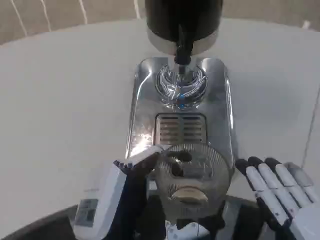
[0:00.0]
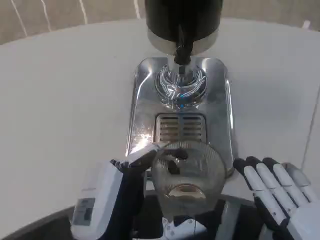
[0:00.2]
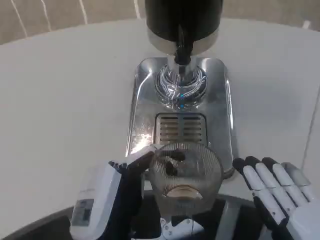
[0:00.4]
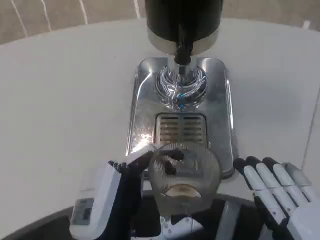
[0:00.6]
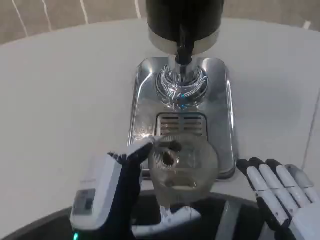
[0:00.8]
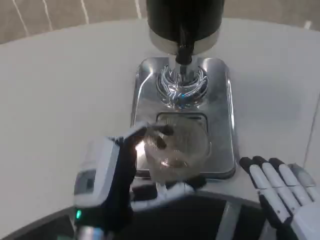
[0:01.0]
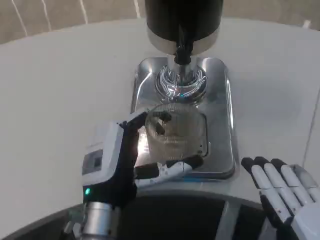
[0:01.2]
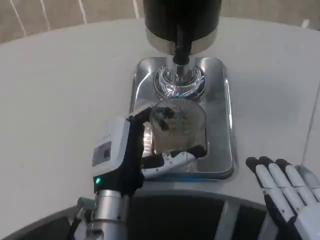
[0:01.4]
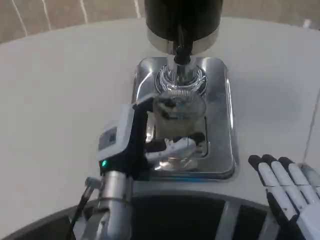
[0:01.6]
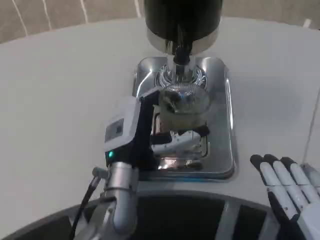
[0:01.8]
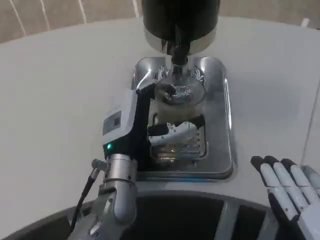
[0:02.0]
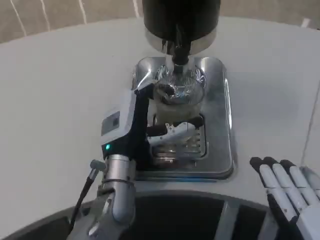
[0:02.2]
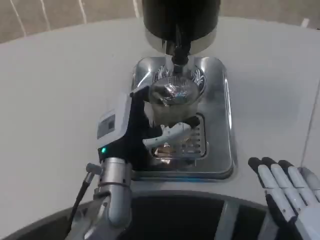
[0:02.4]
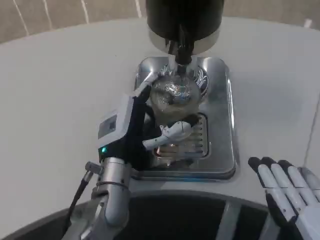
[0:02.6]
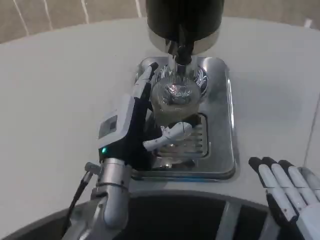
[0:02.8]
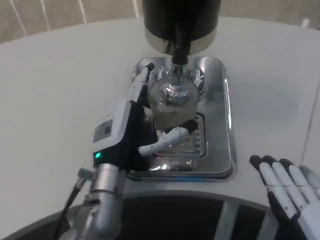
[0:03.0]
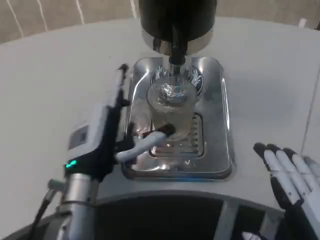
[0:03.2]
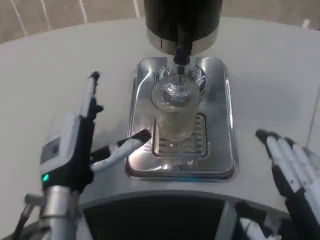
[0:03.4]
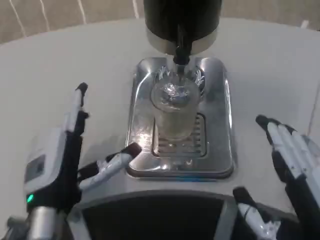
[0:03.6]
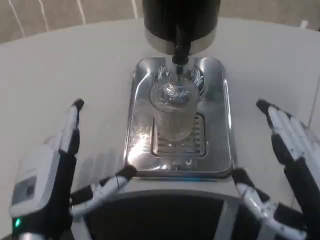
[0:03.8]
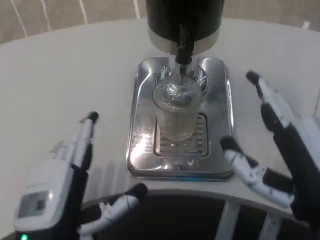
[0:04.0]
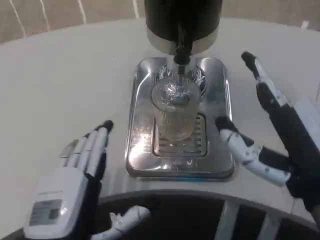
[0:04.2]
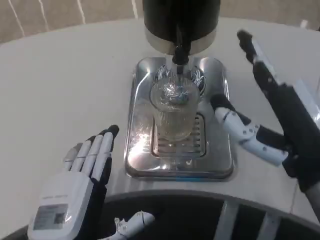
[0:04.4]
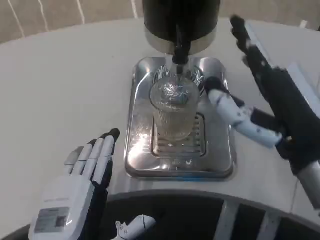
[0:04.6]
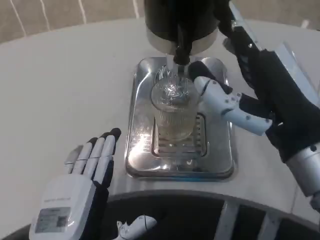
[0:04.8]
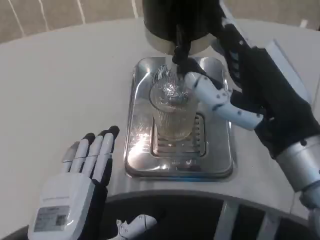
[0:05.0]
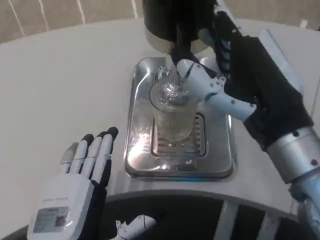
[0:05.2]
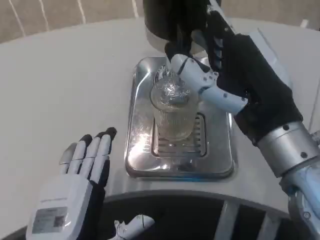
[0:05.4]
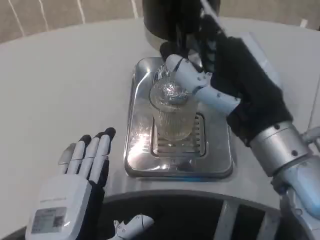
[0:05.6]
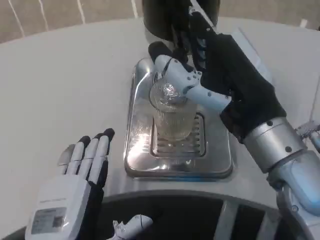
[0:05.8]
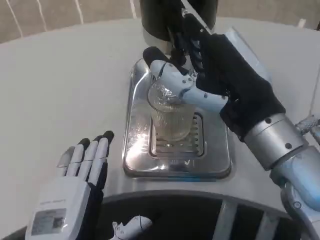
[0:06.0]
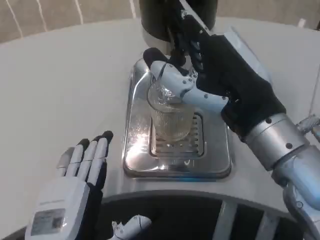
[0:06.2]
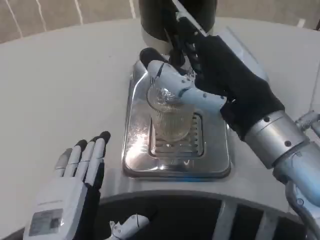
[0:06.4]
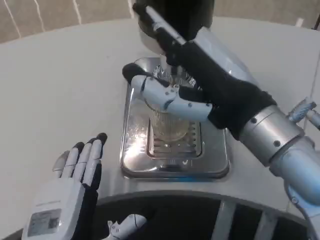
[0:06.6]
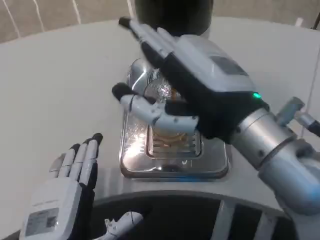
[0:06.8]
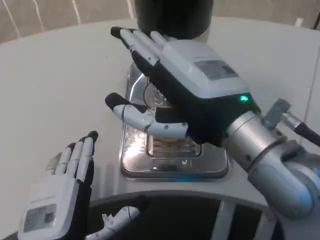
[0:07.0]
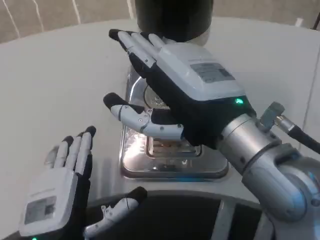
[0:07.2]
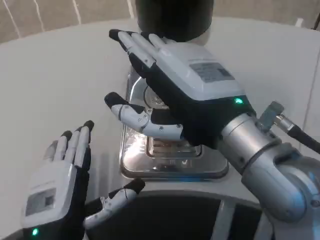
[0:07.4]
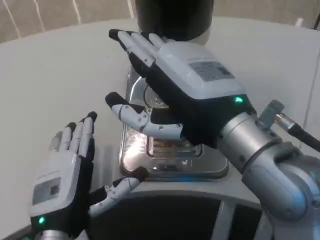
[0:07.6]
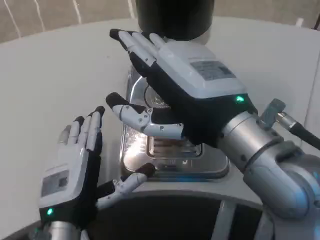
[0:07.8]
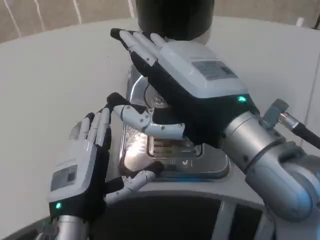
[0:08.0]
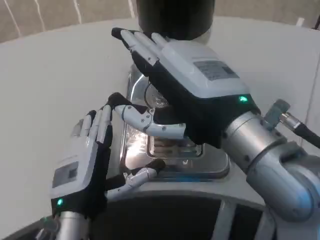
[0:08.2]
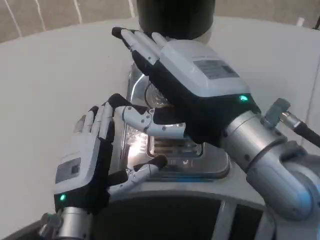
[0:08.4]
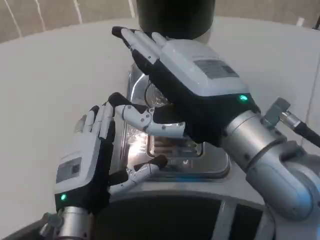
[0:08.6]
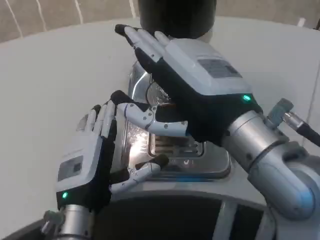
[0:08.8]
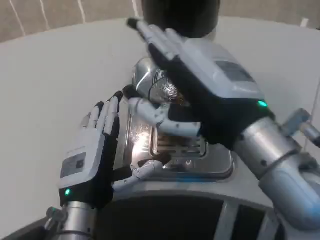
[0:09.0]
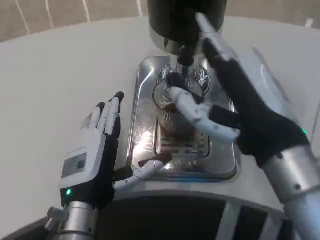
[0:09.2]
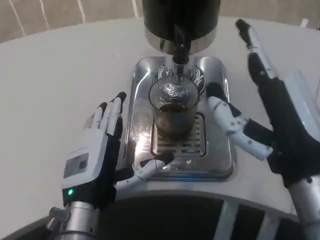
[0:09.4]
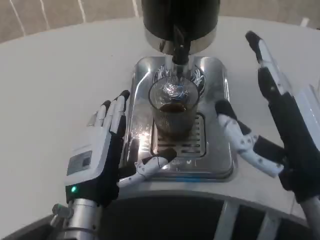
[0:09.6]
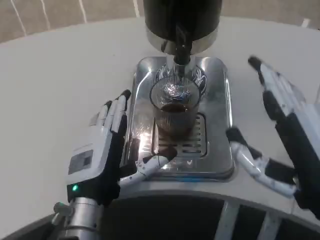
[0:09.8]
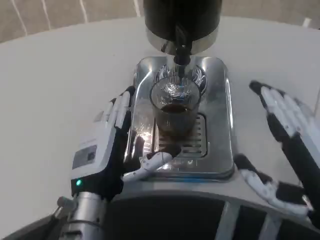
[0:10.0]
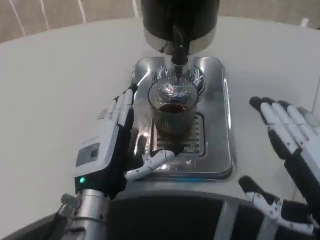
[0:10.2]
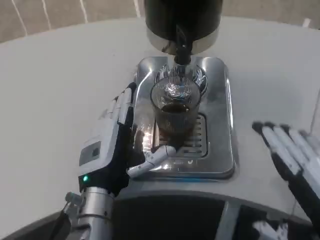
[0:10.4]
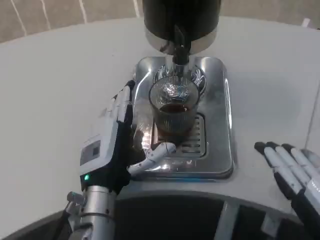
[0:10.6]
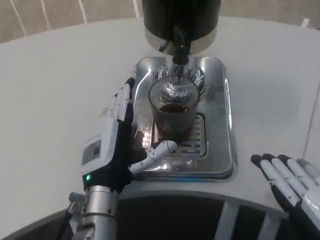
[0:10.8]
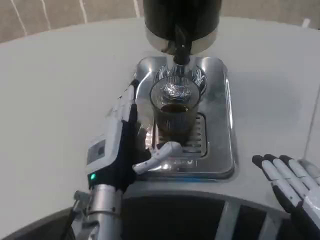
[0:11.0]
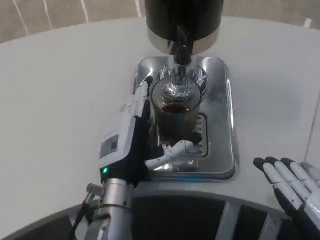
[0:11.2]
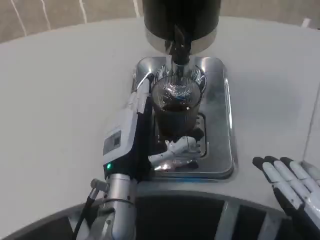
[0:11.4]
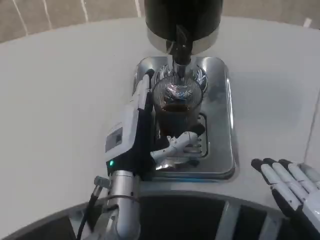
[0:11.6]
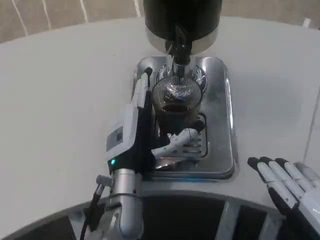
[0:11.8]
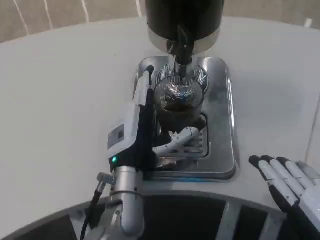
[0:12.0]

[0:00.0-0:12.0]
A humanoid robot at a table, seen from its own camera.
Task of the whole recording: Grasp the cup under the faucet to collect the drink, then remove the cup.
0:00.0 to 0:01.6: The left hand is displaced forward by about 15 cm.
0:01.6 to 0:03.0: There are only small adjustments of the hands.
0:03.0 to 0:04.4: The left hand goes some 15 cm backward. Meanwhile the right hand is displaced forward and upward by some 10 cm.
0:04.4 to 0:06.0: The right hand changes place by approximately 5 cm.
0:06.0 to 0:07.6: The left hand moves forward, roughly 5 cm.
0:09.0 to 0:10.4: The right hand heads to the right, downward and backward, covering some 15 cm.
0:10.4 to 0:12.0: The left hand shifts by about 5 cm.

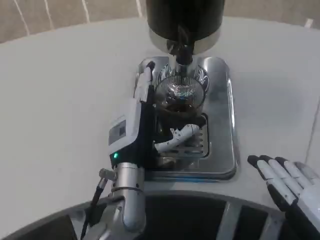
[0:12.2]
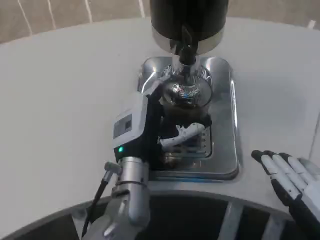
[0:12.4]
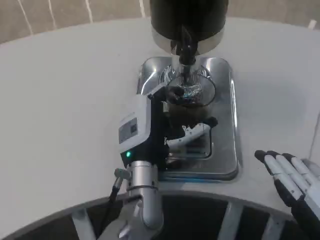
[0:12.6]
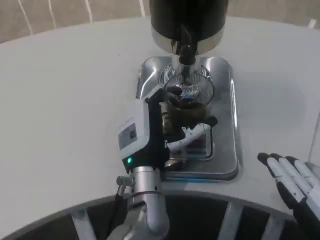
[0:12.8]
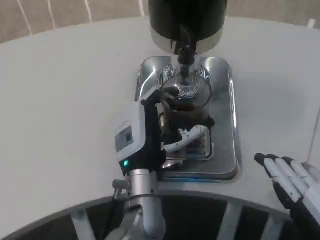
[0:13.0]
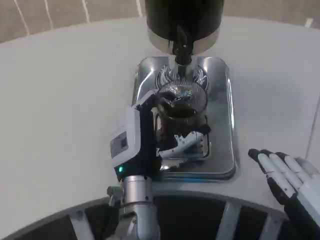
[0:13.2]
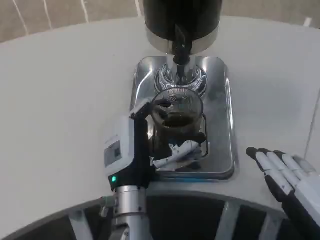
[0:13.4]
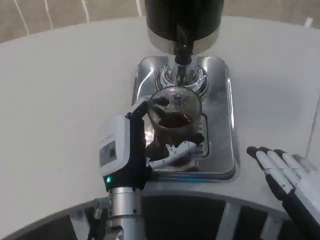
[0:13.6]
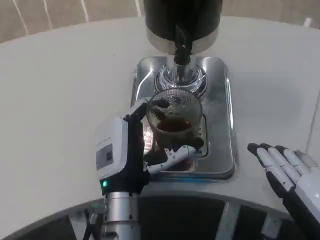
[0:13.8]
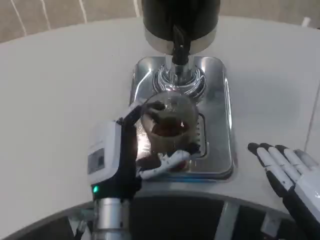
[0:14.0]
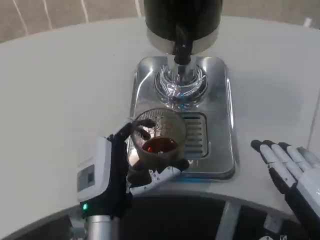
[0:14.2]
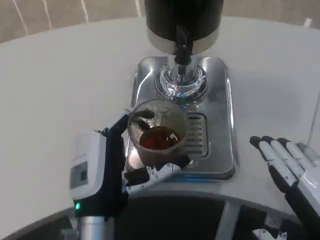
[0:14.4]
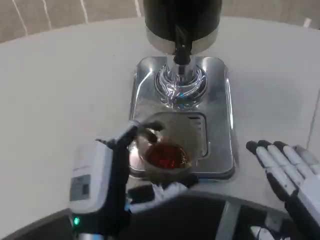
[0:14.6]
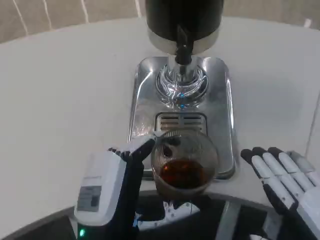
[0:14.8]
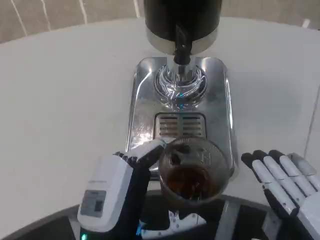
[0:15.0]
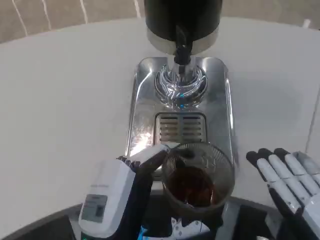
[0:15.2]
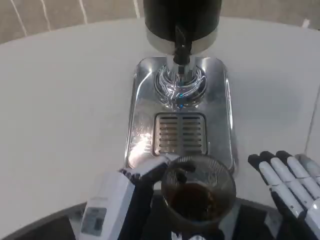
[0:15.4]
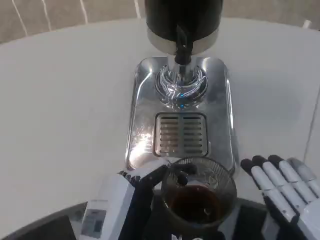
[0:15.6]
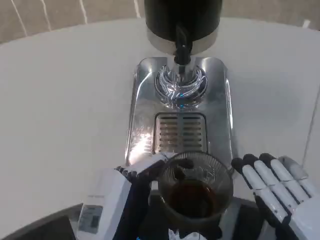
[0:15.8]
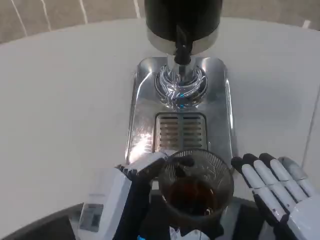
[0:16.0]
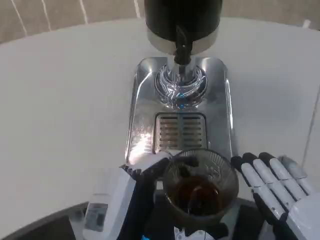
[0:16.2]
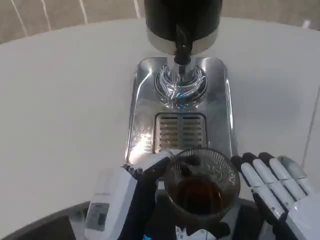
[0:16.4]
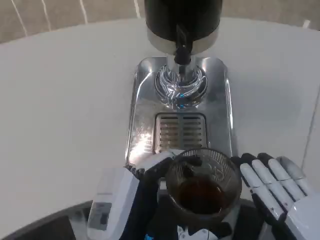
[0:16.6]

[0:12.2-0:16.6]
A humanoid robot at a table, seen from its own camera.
Task of the whole recording: Grasp the cup under the faucet to collect the drink, then remove the cup.
0:12.2 to 0:13.6: There are only small adjustments of the hands.
0:13.6 to 0:15.2: The left hand is displaced backward by about 10 cm.
0:15.2 to 0:16.6: The hands move only a little.

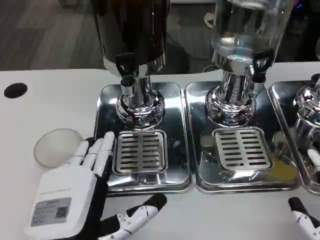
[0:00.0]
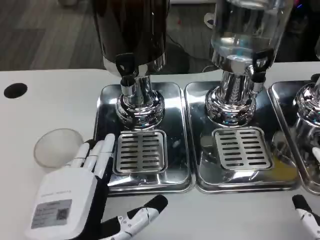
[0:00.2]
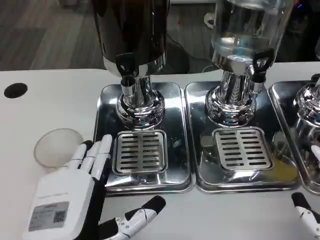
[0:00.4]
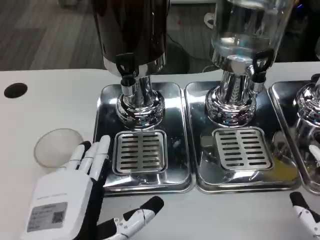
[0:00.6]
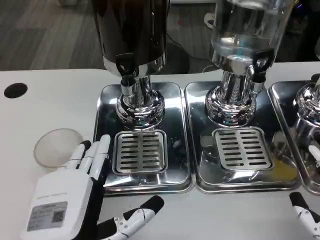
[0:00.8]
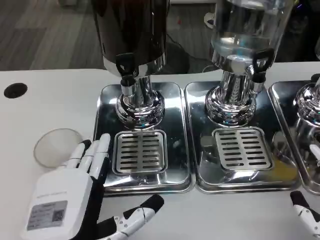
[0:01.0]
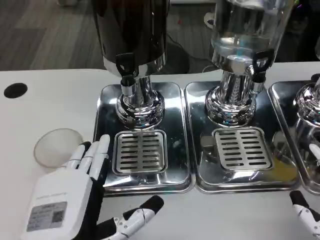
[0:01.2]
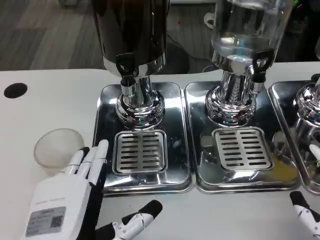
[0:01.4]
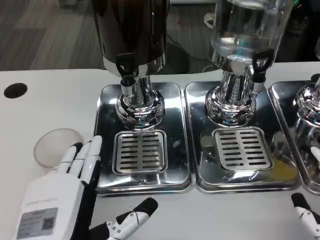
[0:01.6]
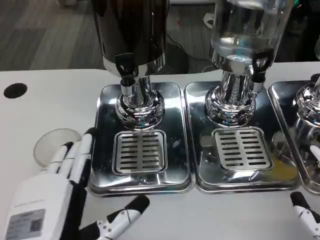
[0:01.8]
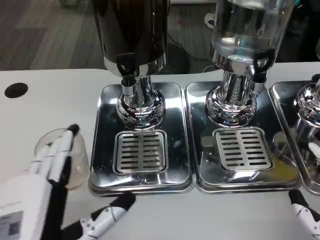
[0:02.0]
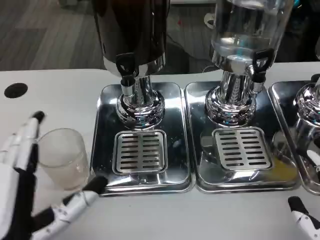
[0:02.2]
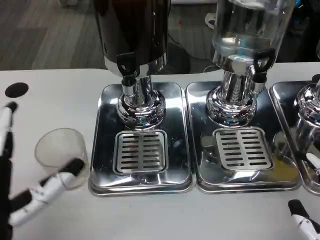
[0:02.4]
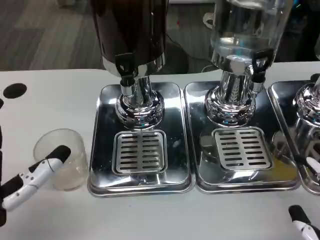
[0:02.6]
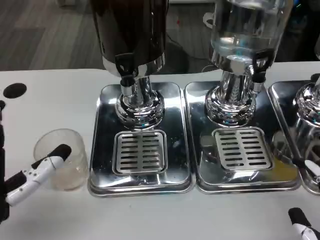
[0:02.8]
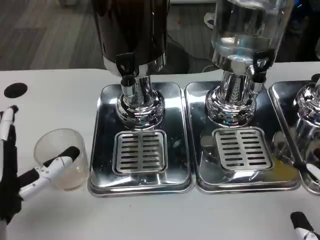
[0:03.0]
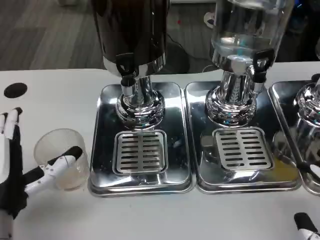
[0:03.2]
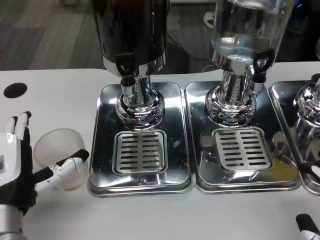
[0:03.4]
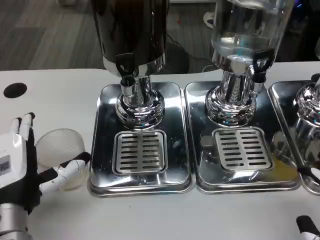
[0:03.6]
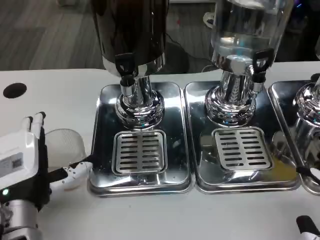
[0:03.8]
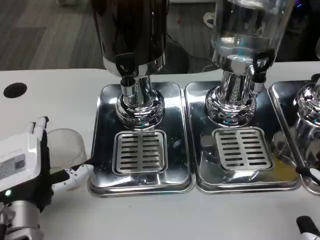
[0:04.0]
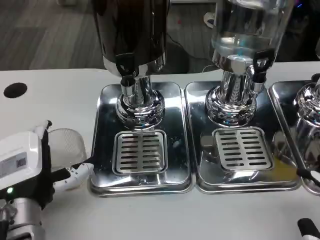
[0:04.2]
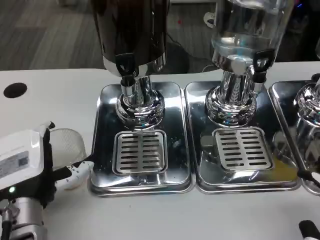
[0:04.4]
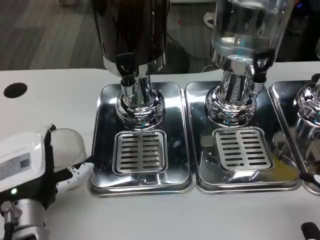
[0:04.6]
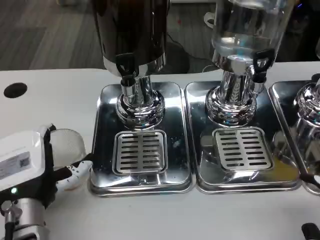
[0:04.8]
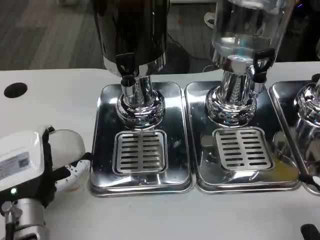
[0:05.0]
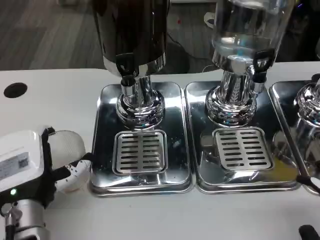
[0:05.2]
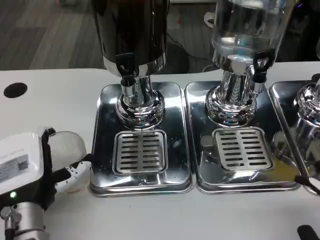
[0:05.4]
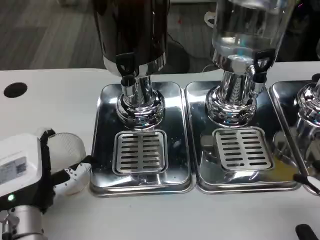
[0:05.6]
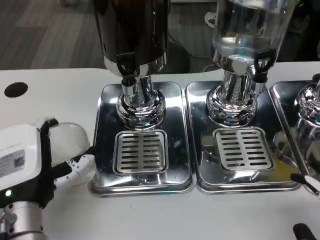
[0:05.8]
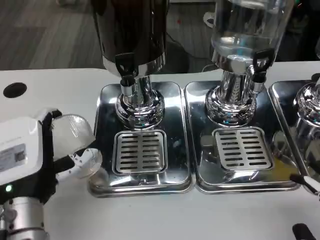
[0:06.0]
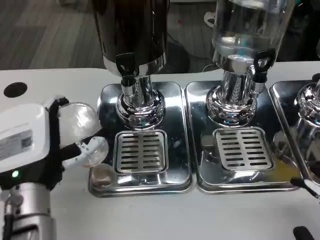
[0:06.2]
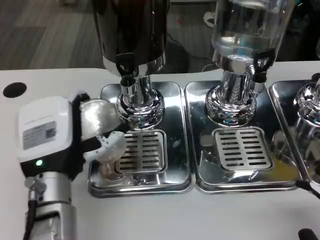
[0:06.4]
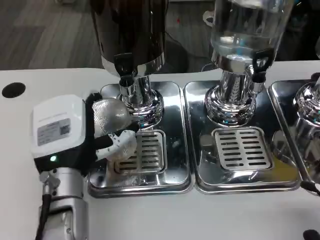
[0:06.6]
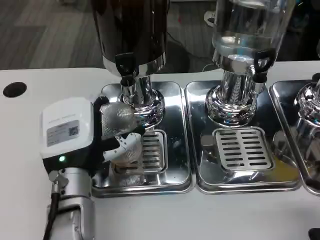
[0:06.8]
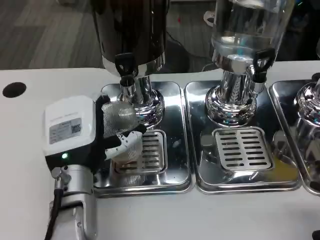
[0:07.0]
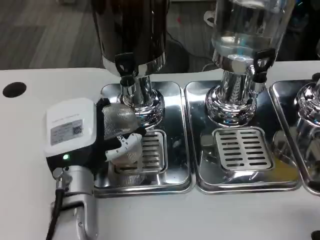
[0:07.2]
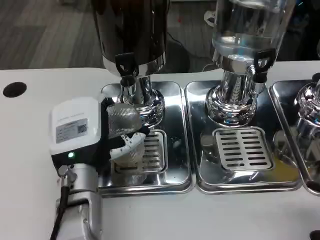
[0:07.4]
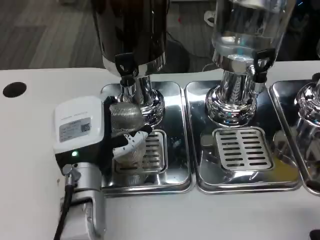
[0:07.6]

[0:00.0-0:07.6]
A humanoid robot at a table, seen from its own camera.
Task of the whole recording: Grasp the cup under the faucet to collect the drink, then remove the cup.
0:00.0 to 0:01.6: The hands move only a little.
0:01.6 to 0:03.0: The left hand goes roughly 10 cm forward and to the left.
0:03.0 to 0:04.6: The left hand ends up about 5 cm from where it was.
0:04.6 to 0:06.0: The hands make only small movements.
0:06.0 to 0:07.6: The left hand shifts about 10 cm to the right and forward.
